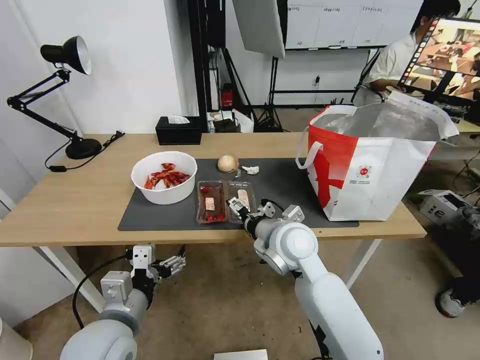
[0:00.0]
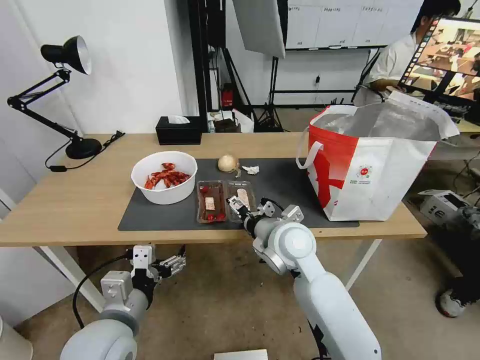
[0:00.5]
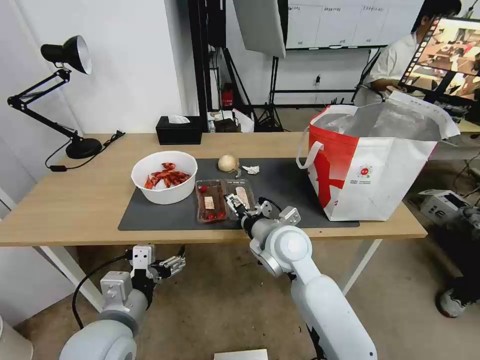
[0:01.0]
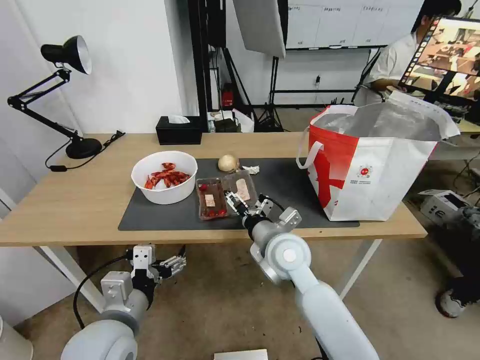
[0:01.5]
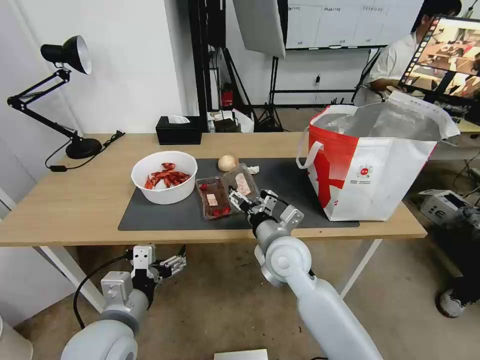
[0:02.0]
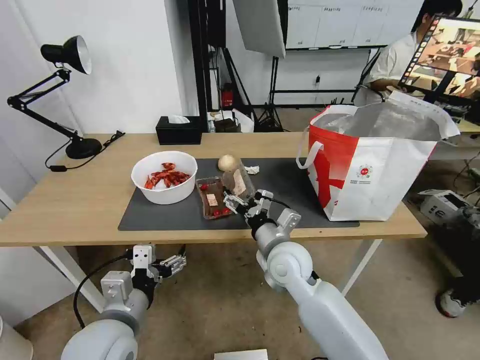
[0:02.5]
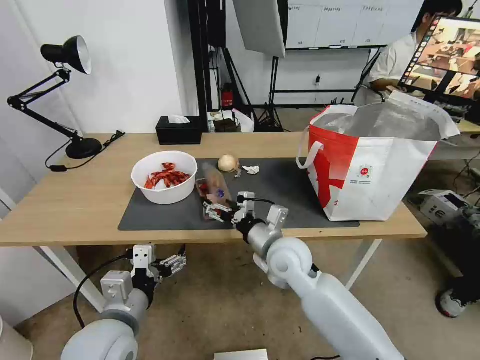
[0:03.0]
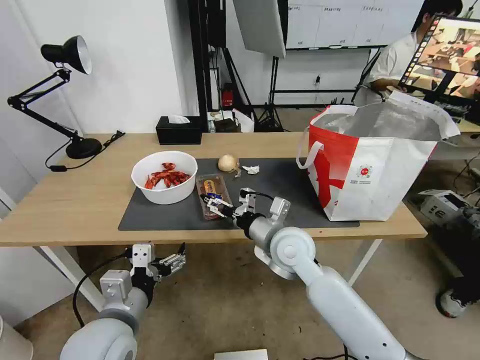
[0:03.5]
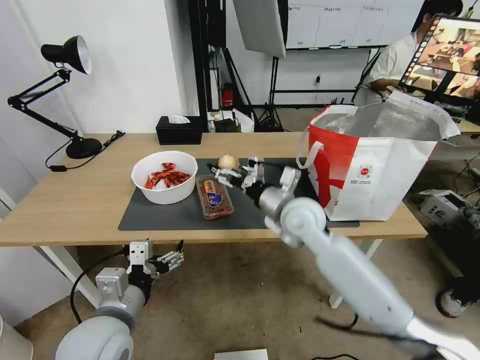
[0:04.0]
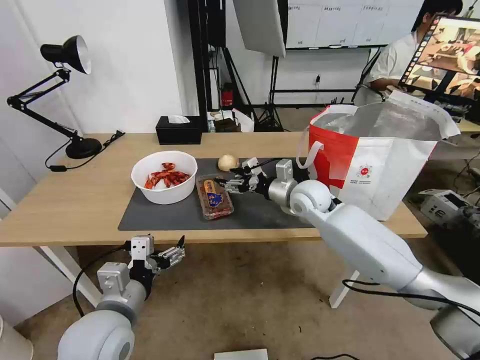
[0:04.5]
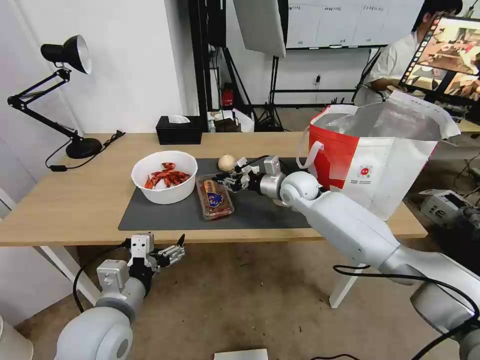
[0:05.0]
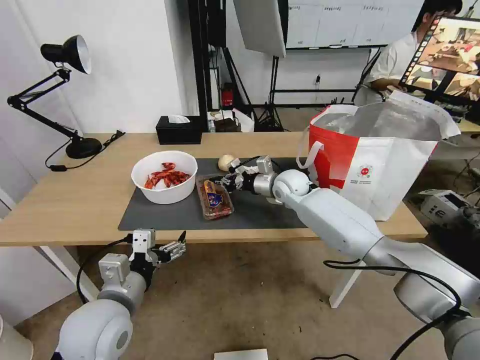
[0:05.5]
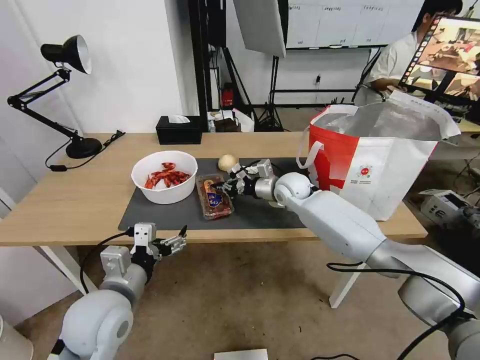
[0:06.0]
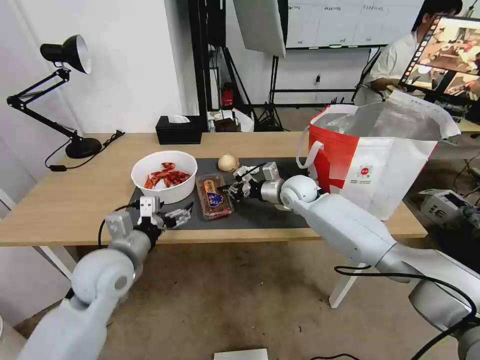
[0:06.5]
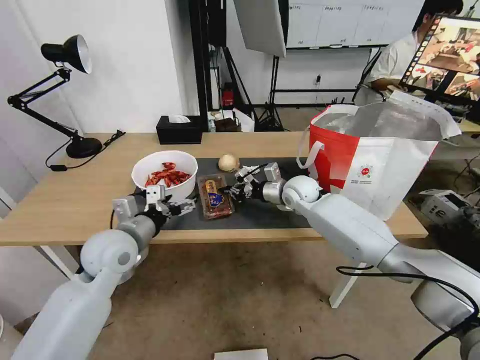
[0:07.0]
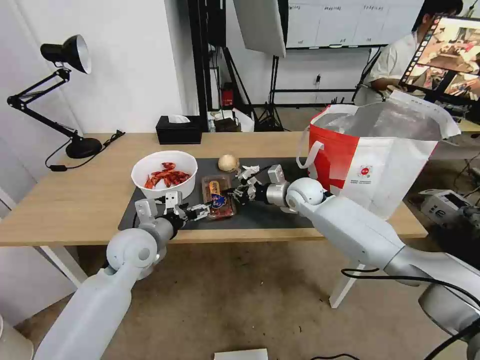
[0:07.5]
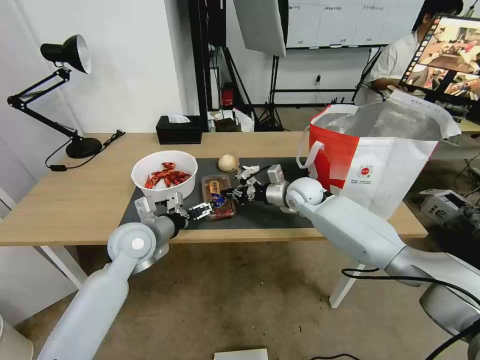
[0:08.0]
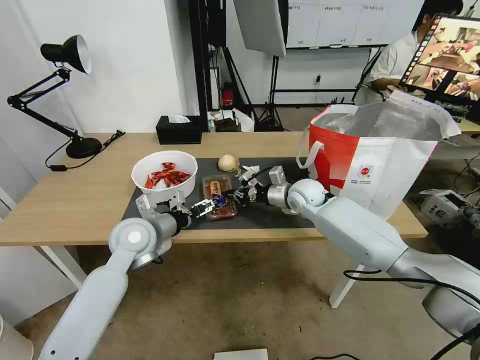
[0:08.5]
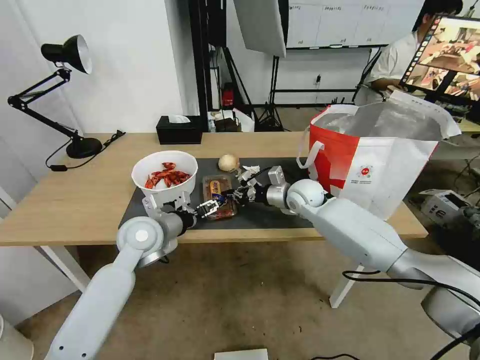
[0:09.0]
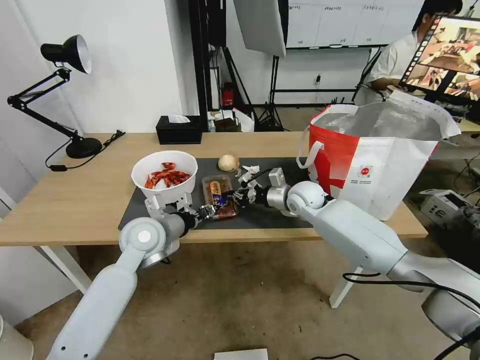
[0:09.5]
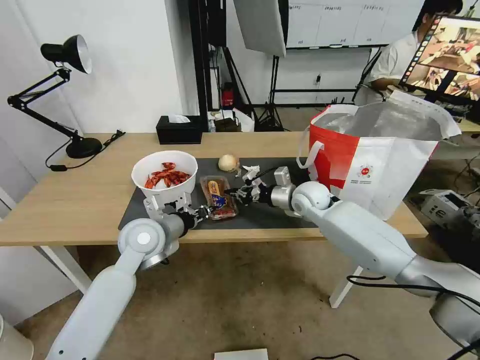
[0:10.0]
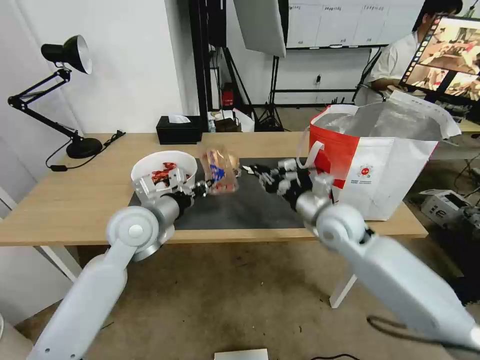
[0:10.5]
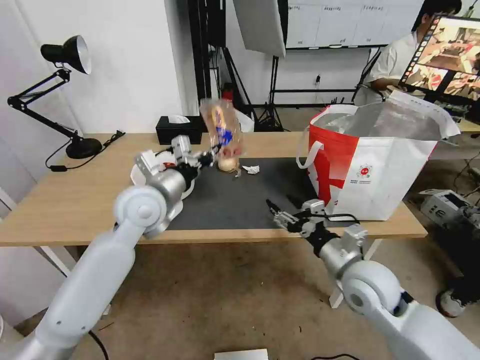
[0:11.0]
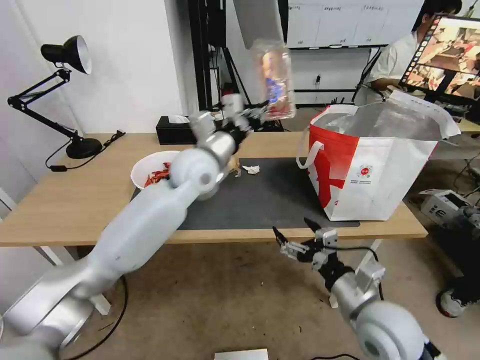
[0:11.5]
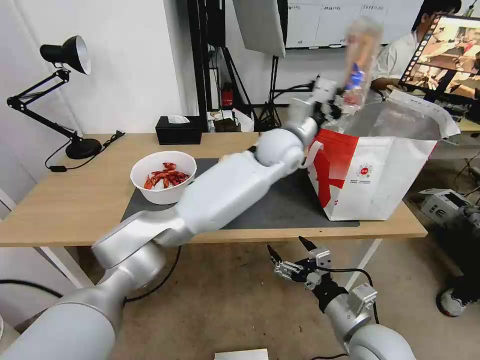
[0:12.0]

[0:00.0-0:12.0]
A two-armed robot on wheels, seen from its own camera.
Task of the whole recording: Pick up the trash from the table and place it into the takeout bag.
2.0 to 4.0 s: The right gripper moves forward, some 10 cm.
4.0 to 6.0 s: The right gripper travels forward by approximately 15 cm, and closes.
6.0 to 8.0 s: The left gripper travels forward by some 15 cm.
8.0 to 10.0 s: The left gripper closes.
10.0 to 12.0 s: The right gripper heads backward, covering some 35 cm, and opens its fingers. Meanwhile the left gripper goes about 35 cm to the right, upward and forward.

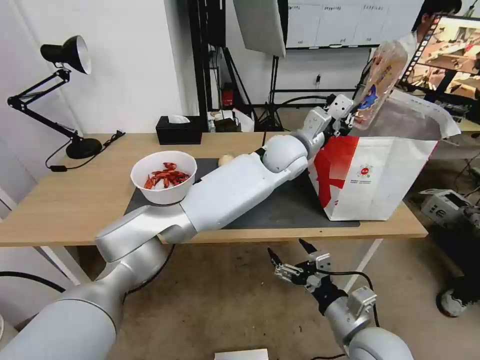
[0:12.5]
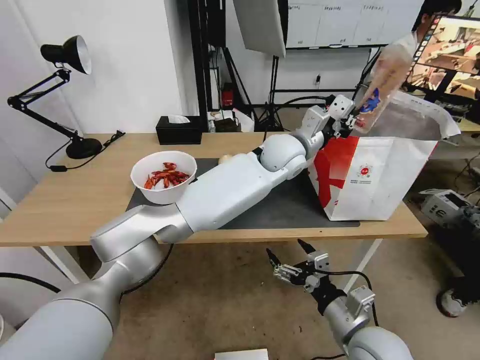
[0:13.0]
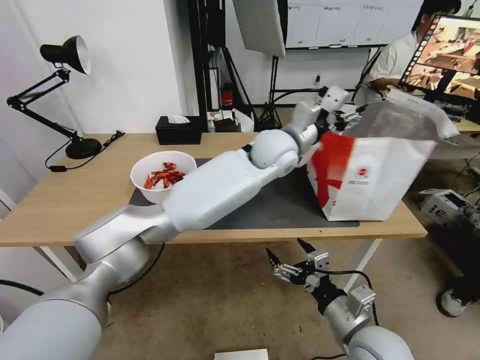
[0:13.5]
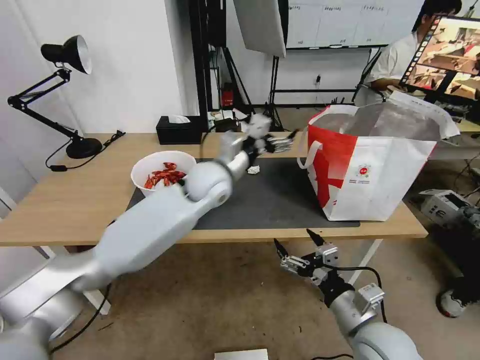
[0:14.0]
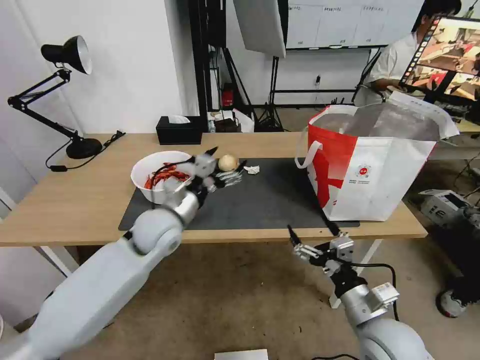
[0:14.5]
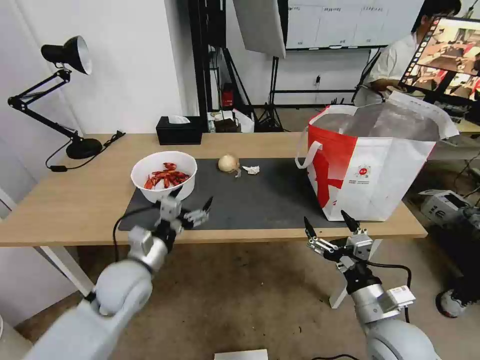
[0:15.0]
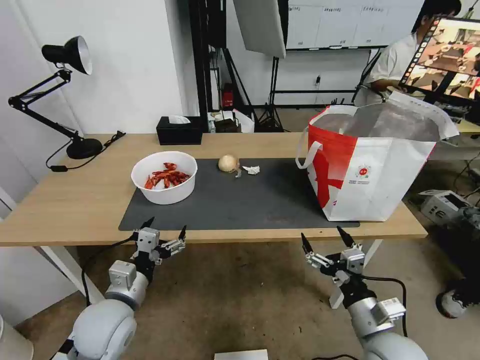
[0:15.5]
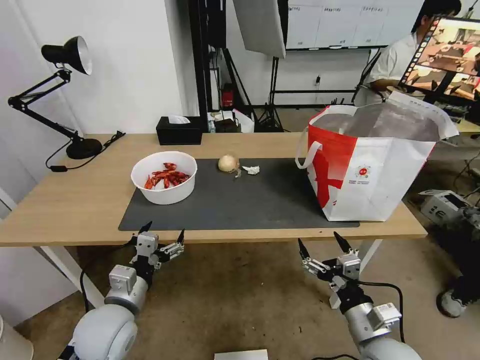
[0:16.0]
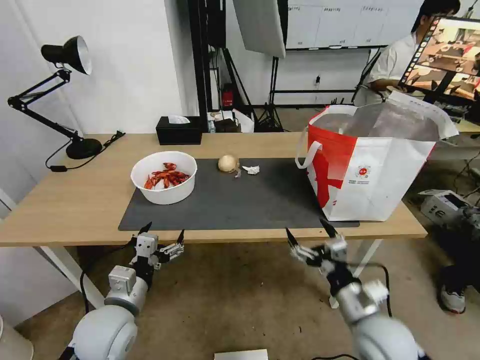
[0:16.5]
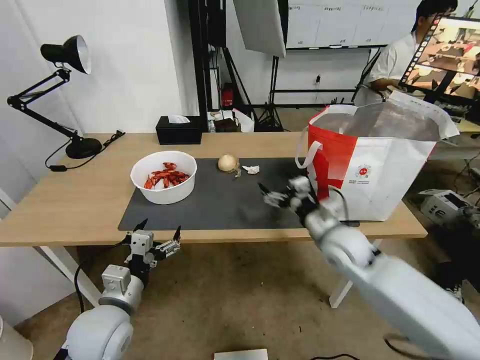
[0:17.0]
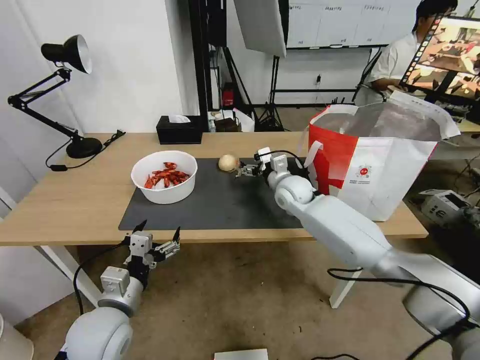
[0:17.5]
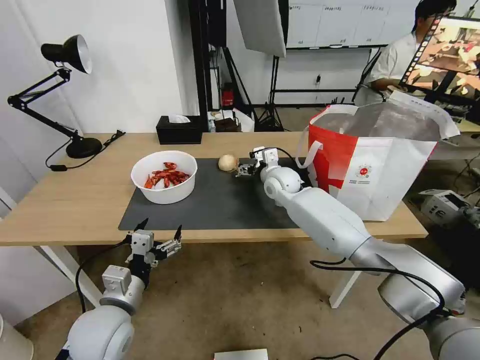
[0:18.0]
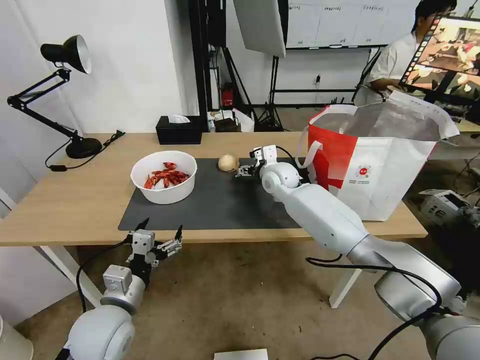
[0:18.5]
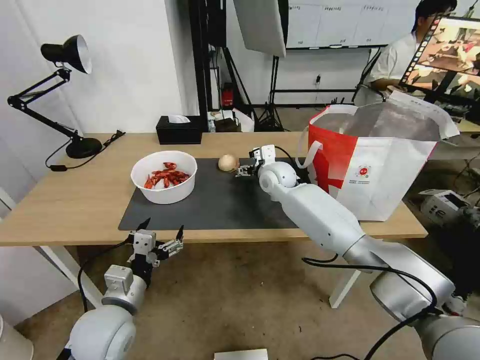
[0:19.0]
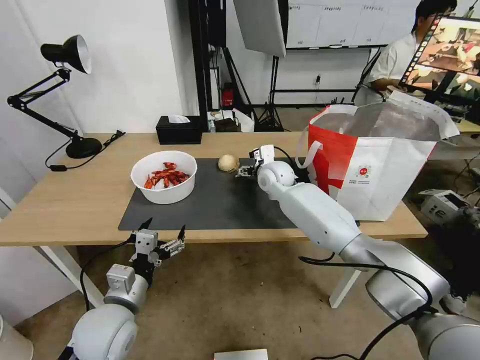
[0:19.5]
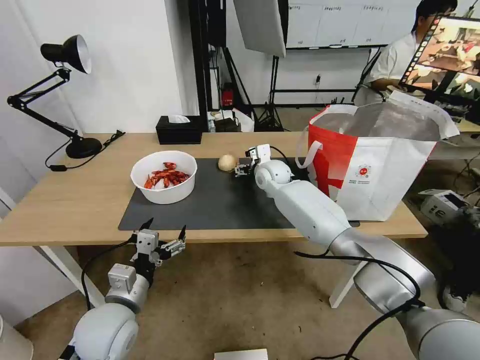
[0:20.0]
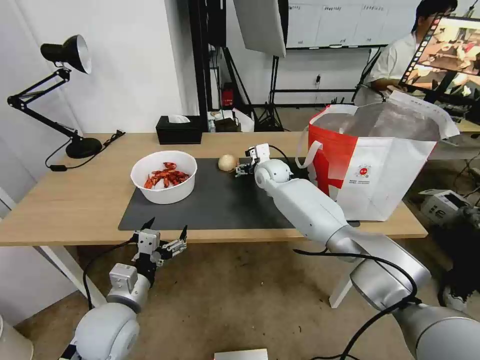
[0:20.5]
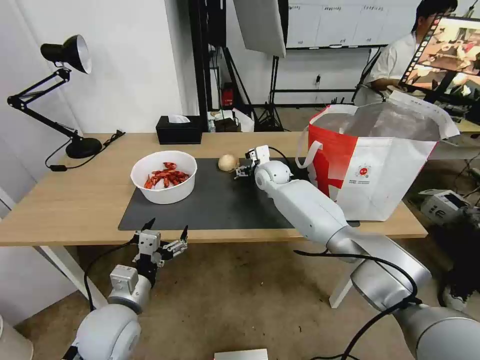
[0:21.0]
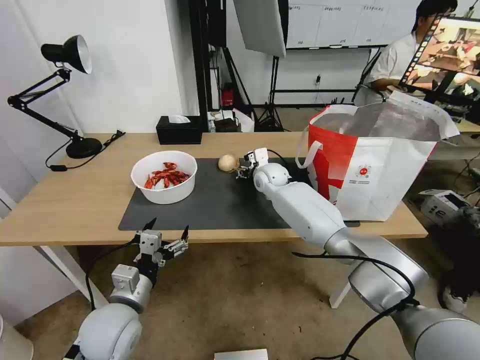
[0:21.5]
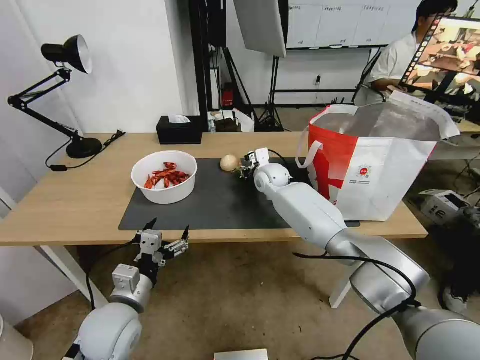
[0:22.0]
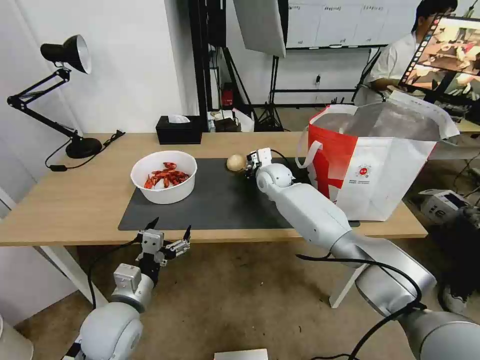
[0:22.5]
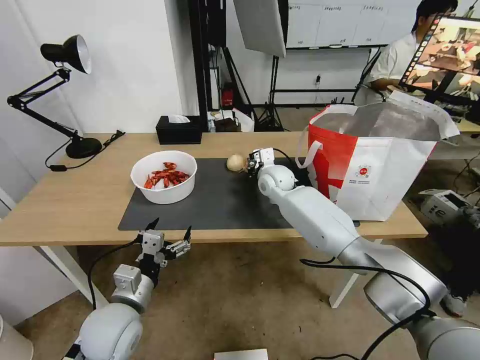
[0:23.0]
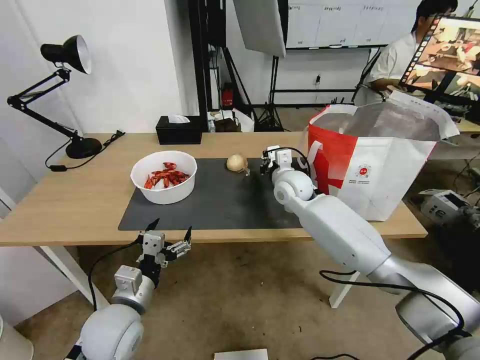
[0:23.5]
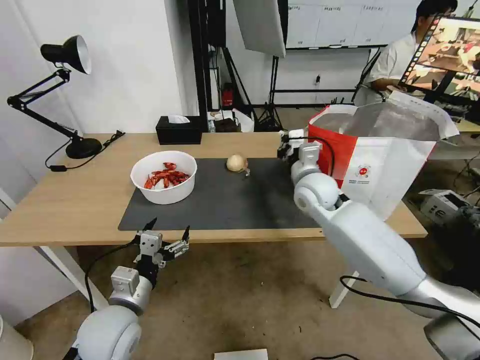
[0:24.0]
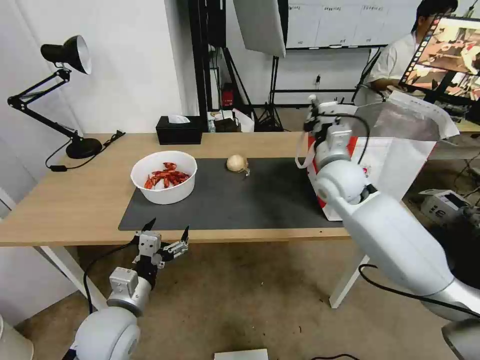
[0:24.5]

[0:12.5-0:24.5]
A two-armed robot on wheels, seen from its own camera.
Task of the whole recording: Pick up the trash from the table and place it into the takeout bag.
12.5 to 14.5 s: The left gripper moves to the left and backward, approximately 30 cm, and opens up.
14.5 to 16.5 s: The left gripper heads backward, downward and to the left, covering some 20 cm.
16.5 to 18.5 s: The right gripper shifts roughly 35 cm forward.
18.5 to 20.5 s: The grippers move only a little.
20.5 to 22.5 s: The right gripper closes up.
22.5 to 24.5 s: The right gripper shifts some 20 cm backward, to the right and upward.

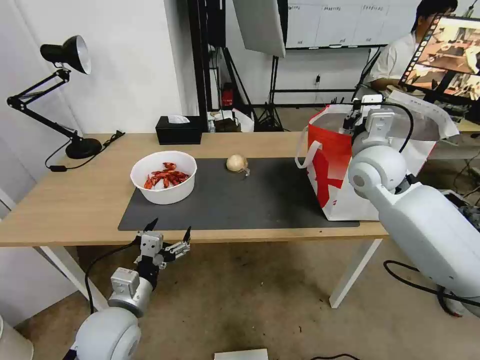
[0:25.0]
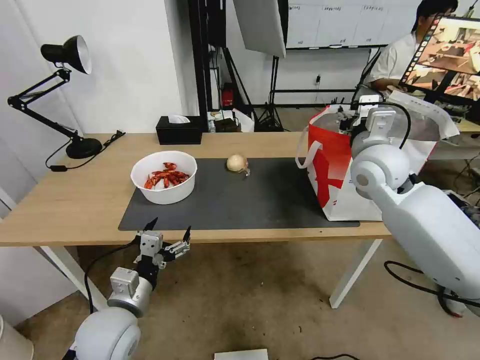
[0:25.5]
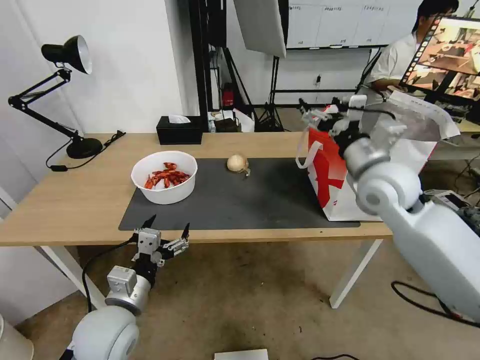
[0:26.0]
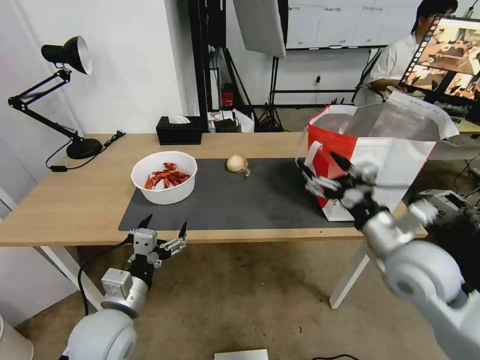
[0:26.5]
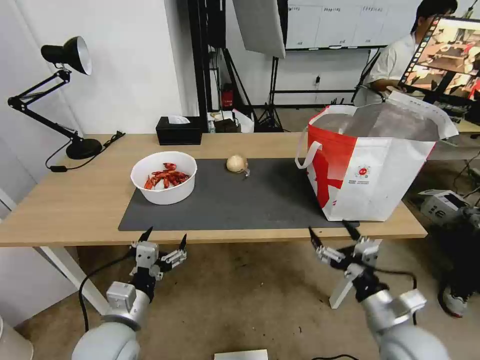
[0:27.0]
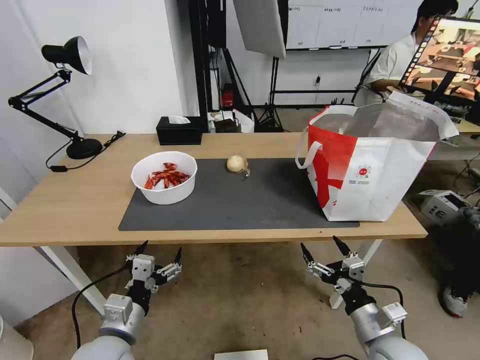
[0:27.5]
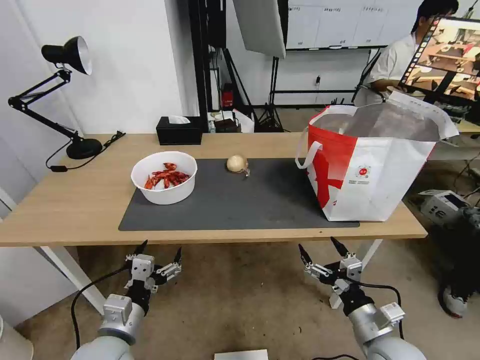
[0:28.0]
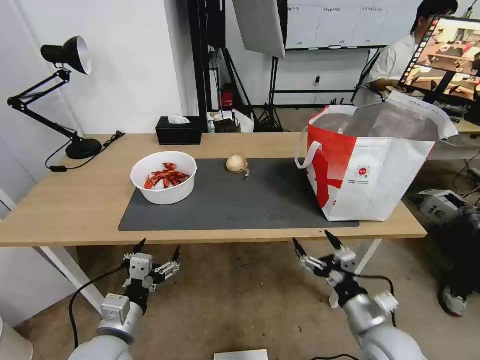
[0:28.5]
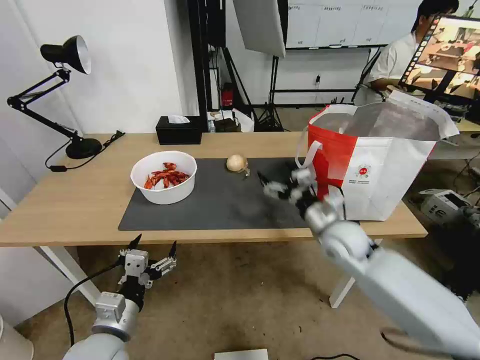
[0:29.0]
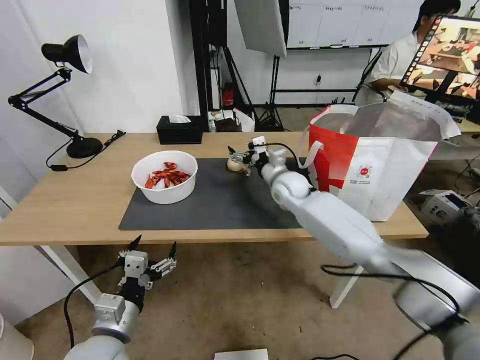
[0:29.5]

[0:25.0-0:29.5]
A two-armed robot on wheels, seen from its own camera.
Task of the whole recording: Pick up the trash from the table and place it into the takeout bag.
25.0 to 27.0 s: The right gripper is displaced backward and downward by about 35 cm, and opens its fingers.
27.0 to 29.5 s: The right gripper heads forward and to the left, covering about 40 cm.
